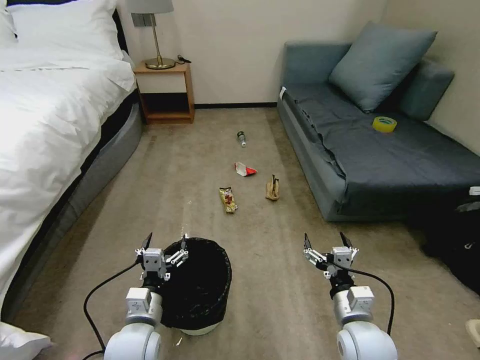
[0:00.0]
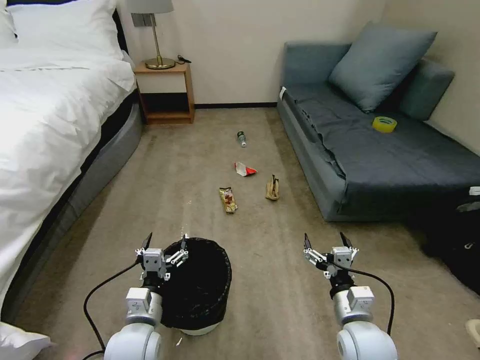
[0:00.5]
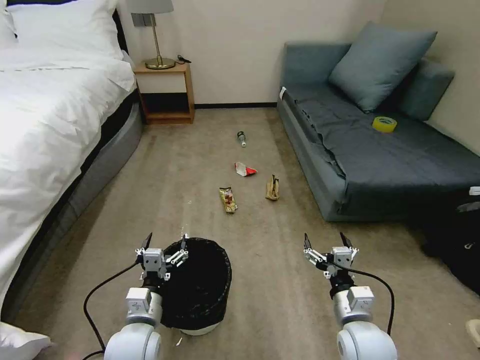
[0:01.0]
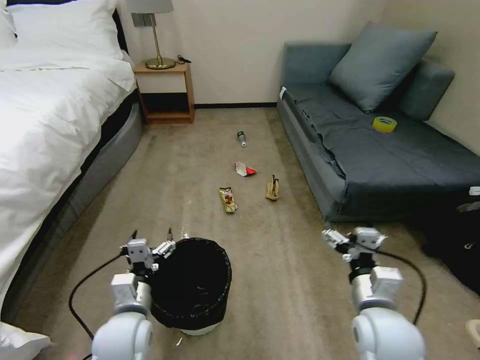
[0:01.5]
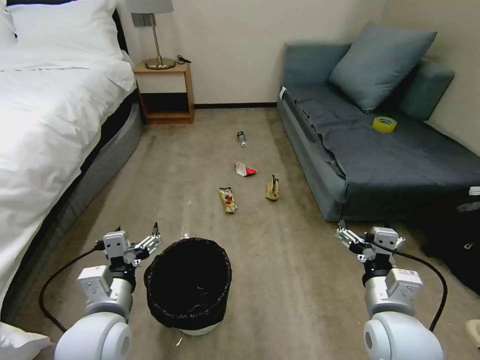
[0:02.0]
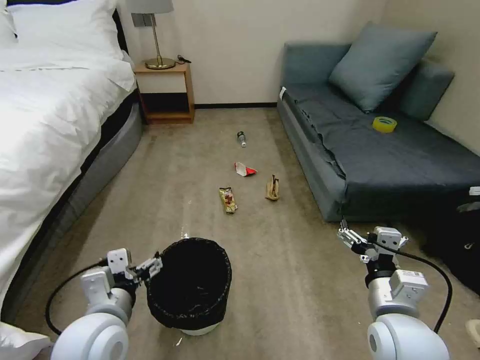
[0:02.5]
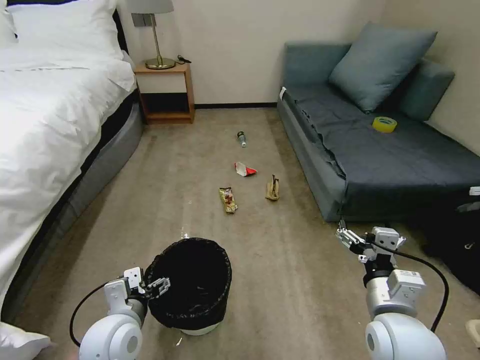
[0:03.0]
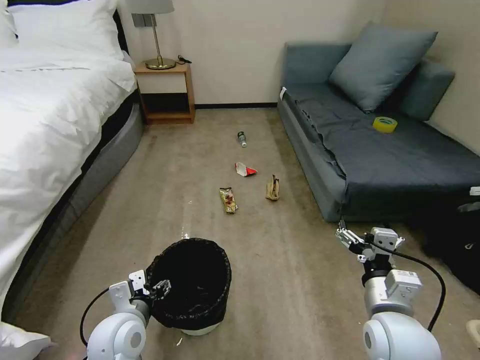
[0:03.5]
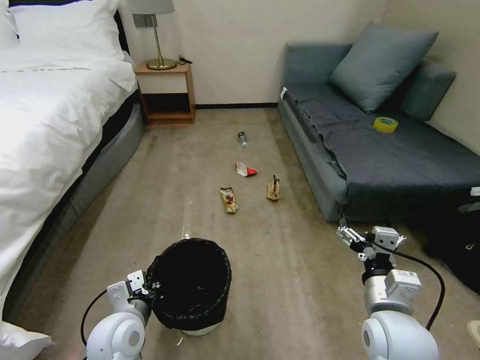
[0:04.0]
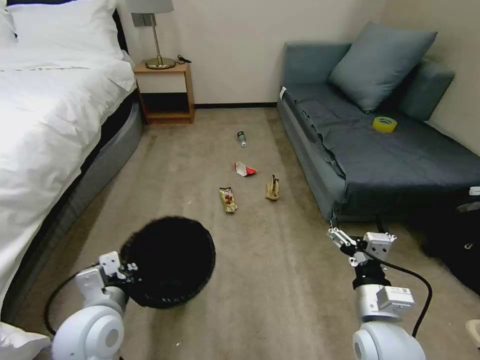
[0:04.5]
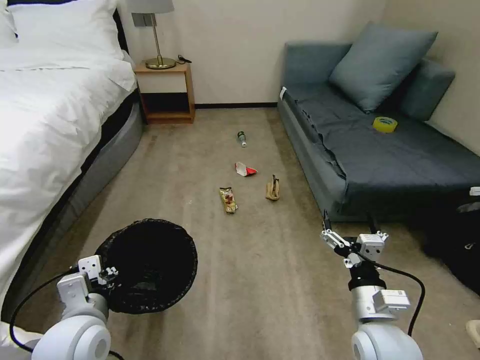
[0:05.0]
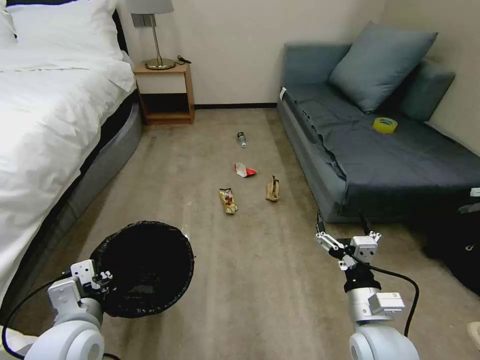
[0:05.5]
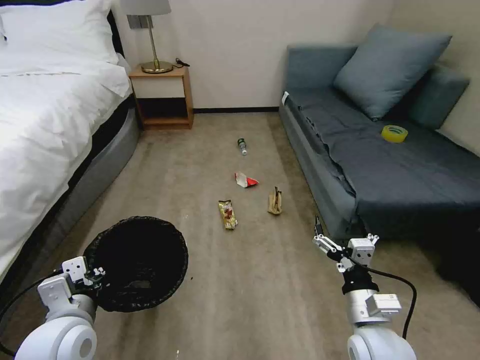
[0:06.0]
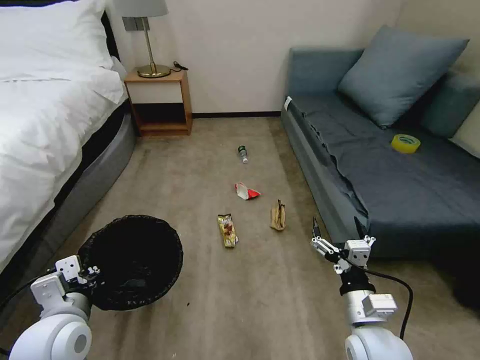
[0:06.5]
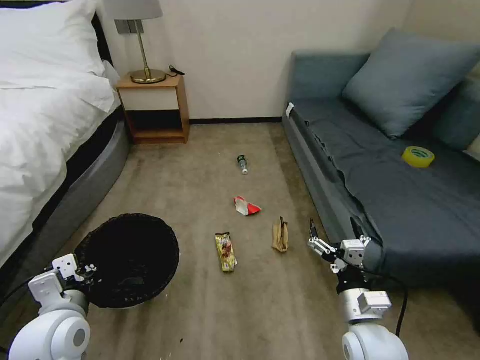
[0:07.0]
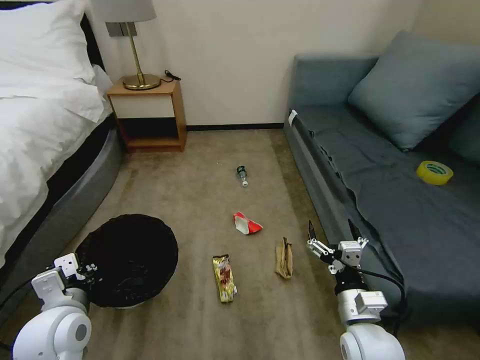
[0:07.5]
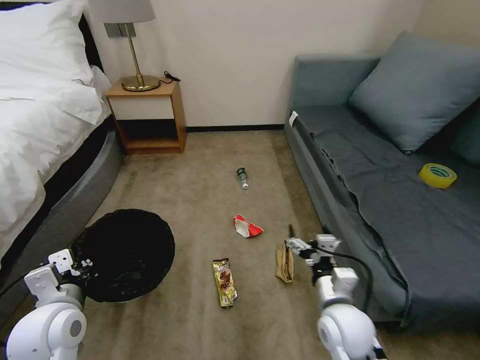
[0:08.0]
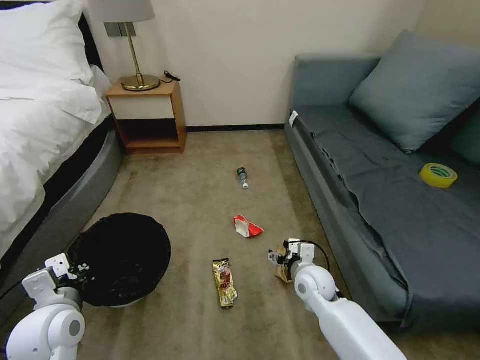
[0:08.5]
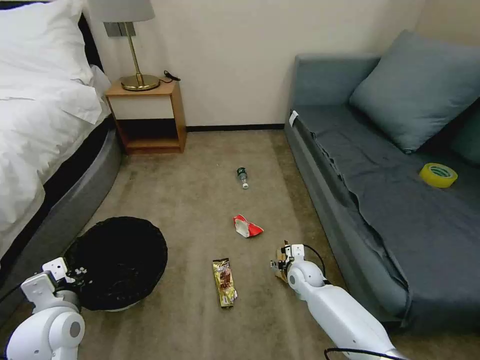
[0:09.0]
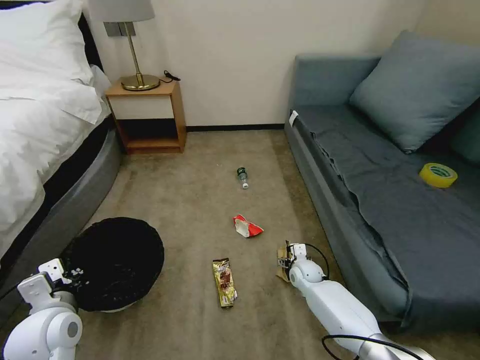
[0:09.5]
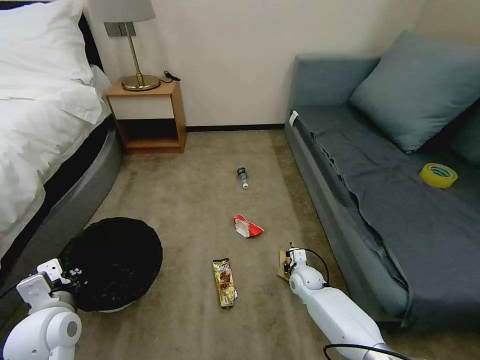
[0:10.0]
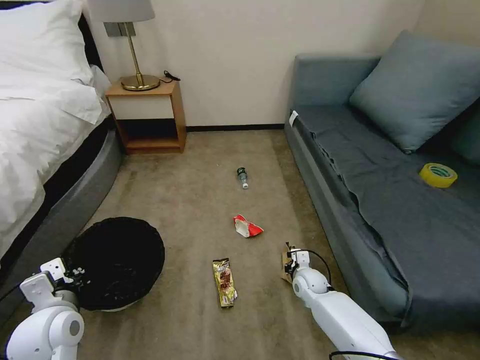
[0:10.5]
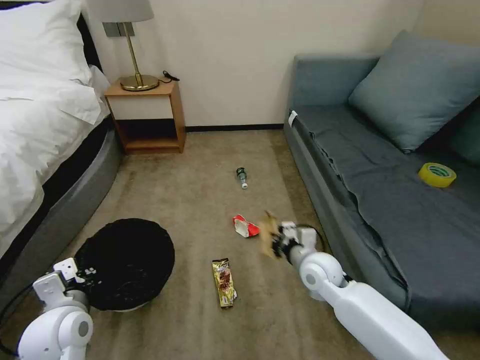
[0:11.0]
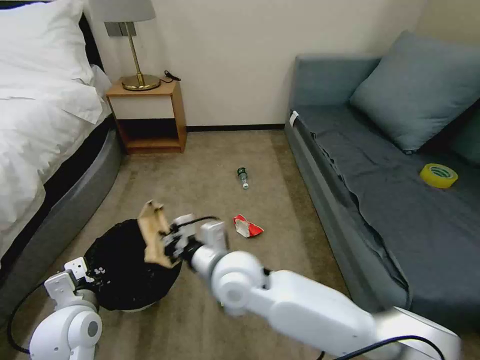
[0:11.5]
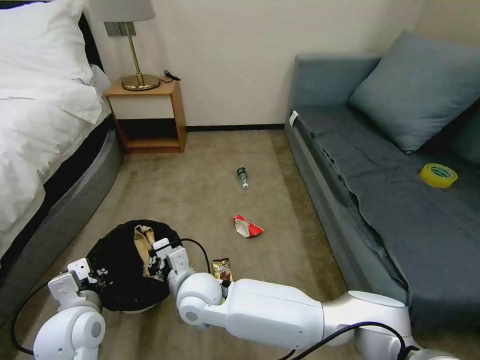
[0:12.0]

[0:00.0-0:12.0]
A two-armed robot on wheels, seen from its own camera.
Task of the whole recording: Pick up the trash bin, then pick up the garbage on the floor and place it into the trash bin.
0:02.0 to 0:04.0: The left gripper moves downward, about 5 cm, and closes its fingers.
0:04.0 to 0:06.0: The left gripper travels upward by some 10 cm.
0:06.0 to 0:08.0: The right gripper changes place by roughly 5 cm.
0:08.0 to 0:10.0: The right gripper shifts roughly 25 cm downward and forward, and closes.
0:10.0 to 0:12.0: The right gripper is displaced to the left and upward by about 35 cm, and closes up.

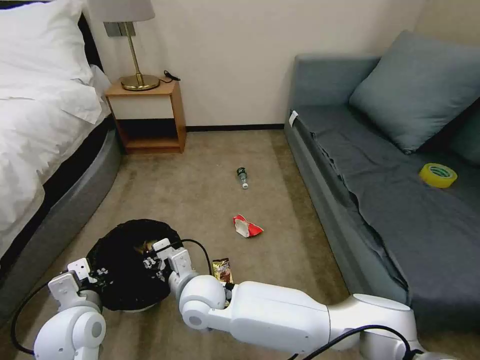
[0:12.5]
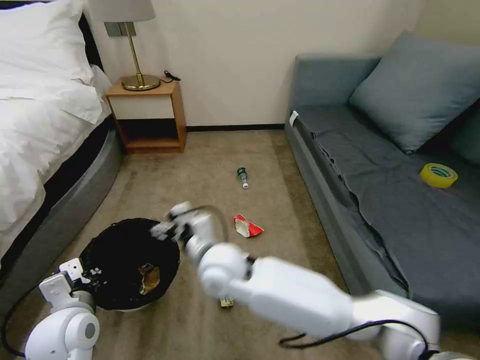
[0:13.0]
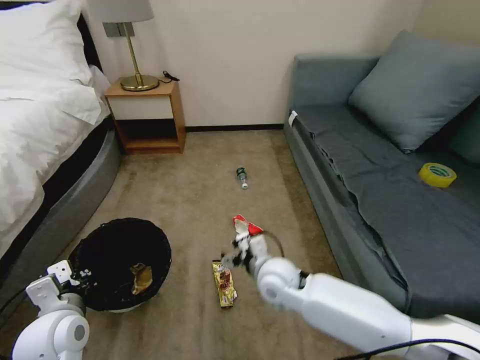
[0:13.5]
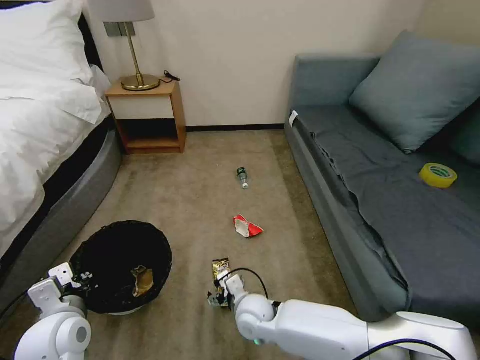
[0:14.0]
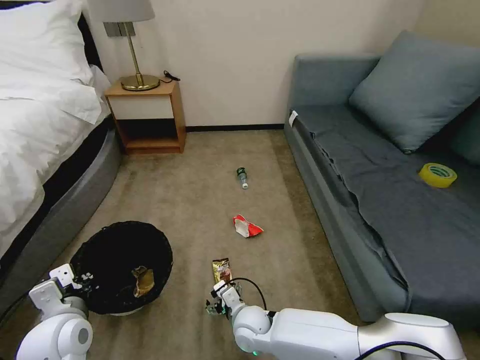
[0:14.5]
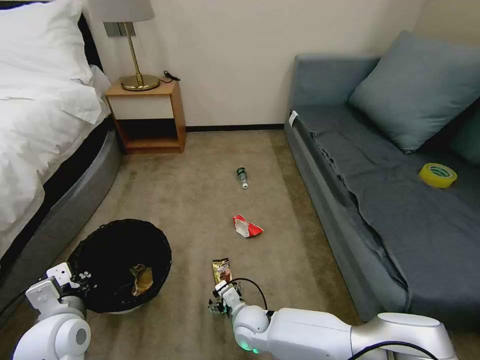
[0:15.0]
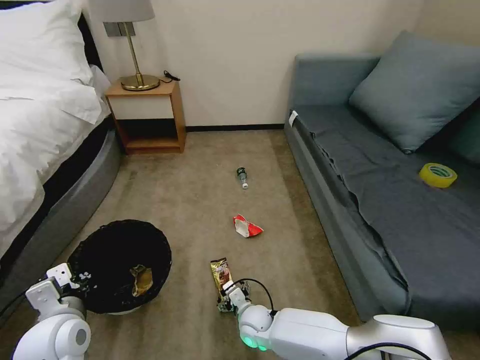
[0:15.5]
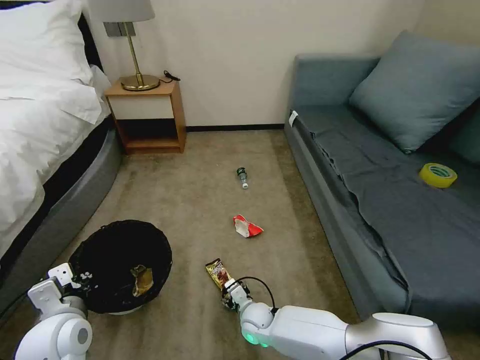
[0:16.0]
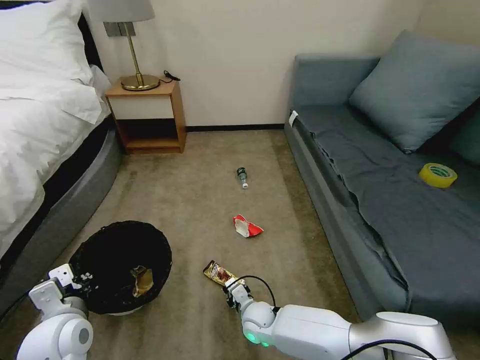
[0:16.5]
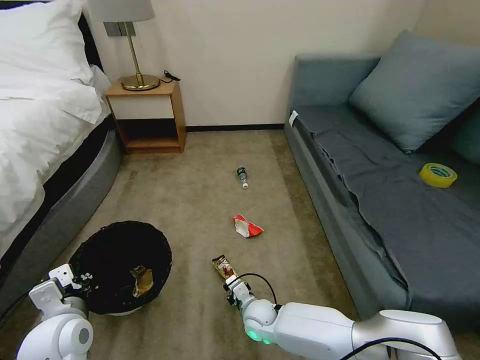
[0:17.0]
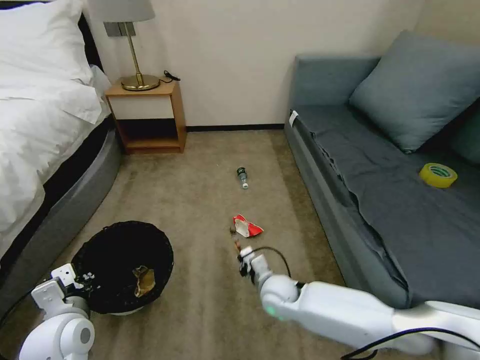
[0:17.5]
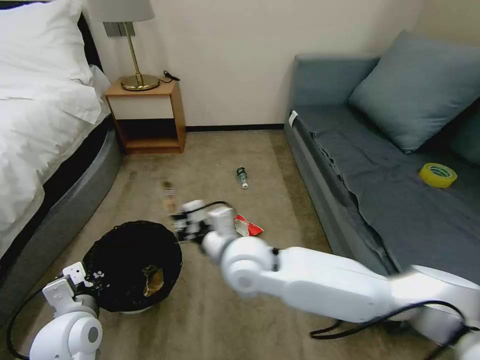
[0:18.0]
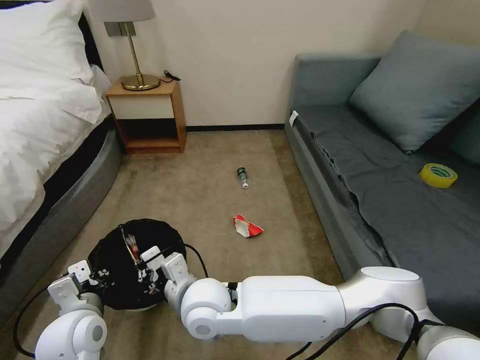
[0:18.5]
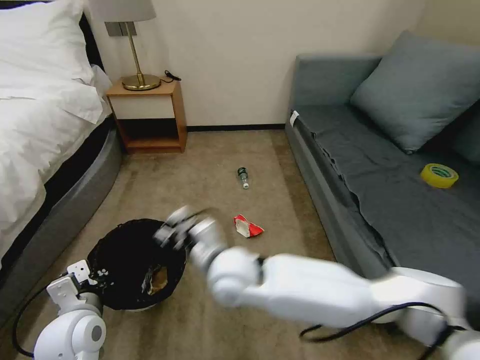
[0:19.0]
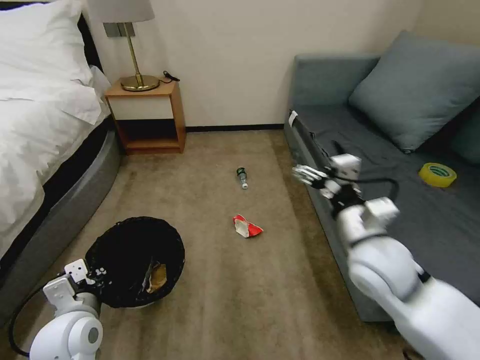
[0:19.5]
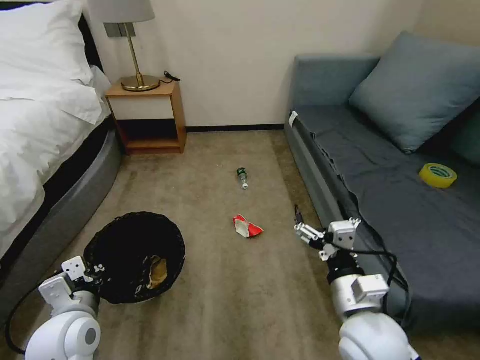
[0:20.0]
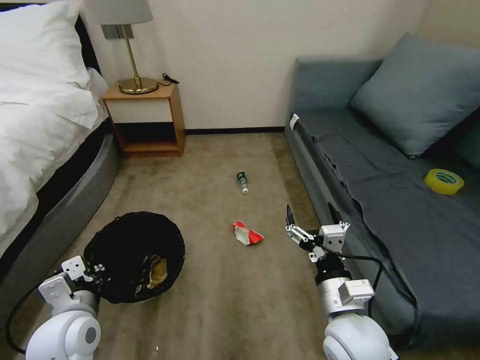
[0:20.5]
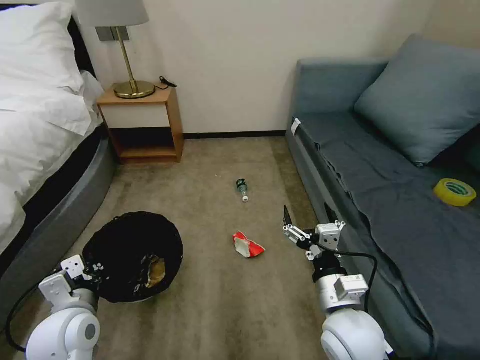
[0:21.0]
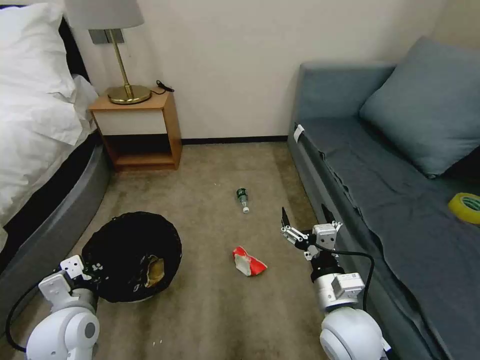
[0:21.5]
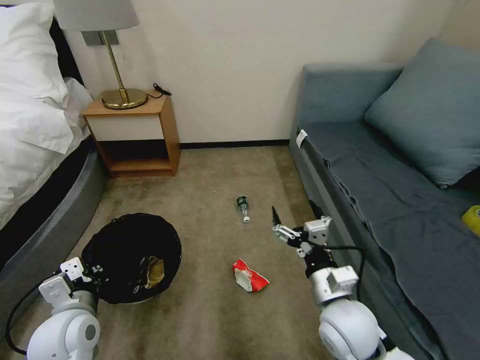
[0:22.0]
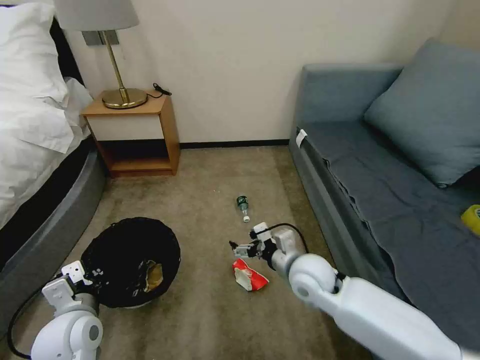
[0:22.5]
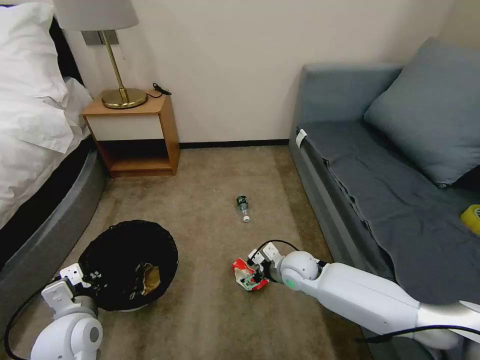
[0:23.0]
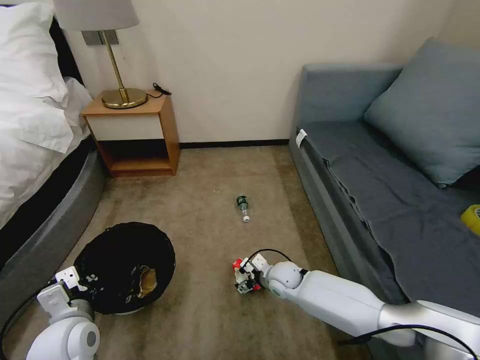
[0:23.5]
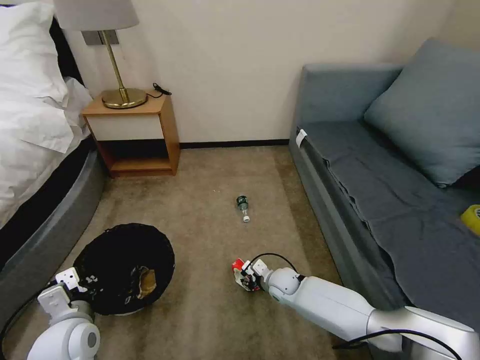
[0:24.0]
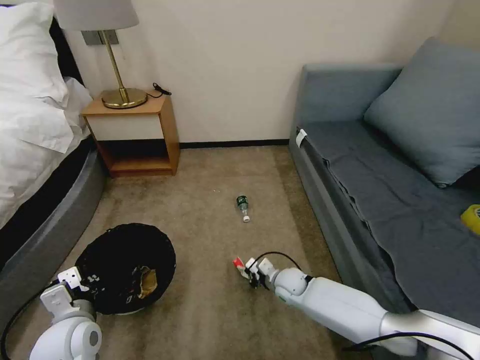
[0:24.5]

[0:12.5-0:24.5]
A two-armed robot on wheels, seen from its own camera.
Task of the whole recording: Pick up the trash bin, then pick up the garbage on the floor and place it into the trash bin.
0:12.5 to 0:14.5: The right gripper shifts roughly 20 cm downward and to the right, and opens.
0:14.5 to 0:16.5: The right gripper changes place by some 5 cm, and closes up.
0:16.5 to 0:18.5: The right gripper heads upward and to the left, covering some 30 cm.
0:18.5 to 0:20.5: The right gripper goes some 25 cm to the right, and opens its fingers.
0:20.5 to 0:22.5: The right gripper goes some 15 cm forward.
0:22.5 to 0:24.5: The right gripper moves downward, approximately 20 cm, and closes its fingers.

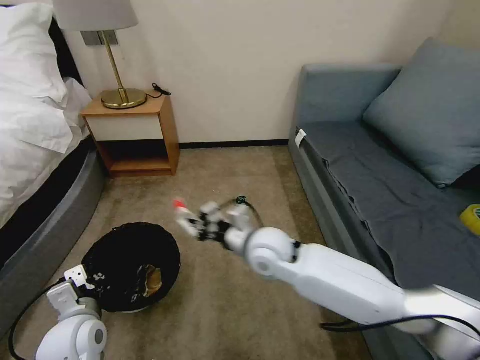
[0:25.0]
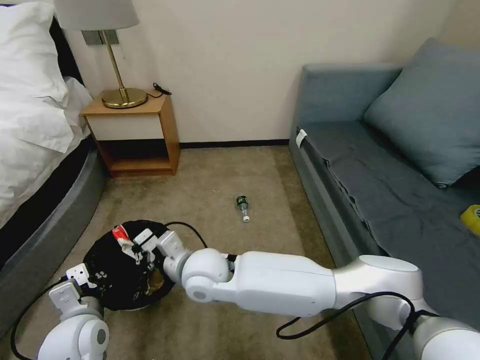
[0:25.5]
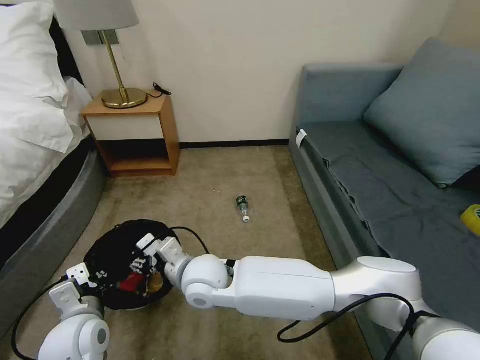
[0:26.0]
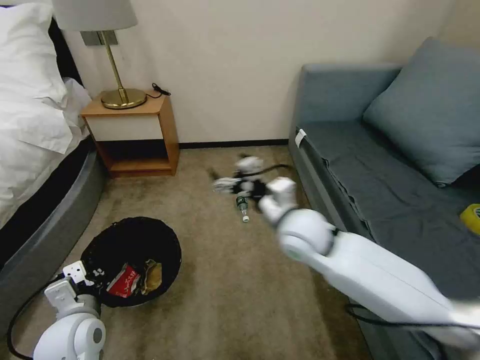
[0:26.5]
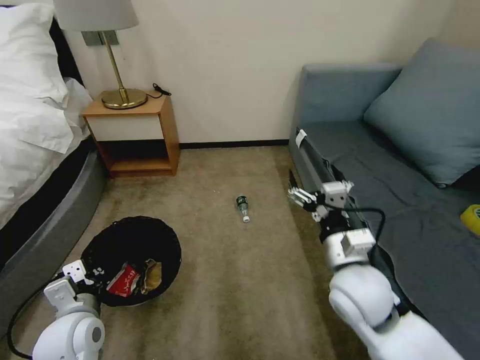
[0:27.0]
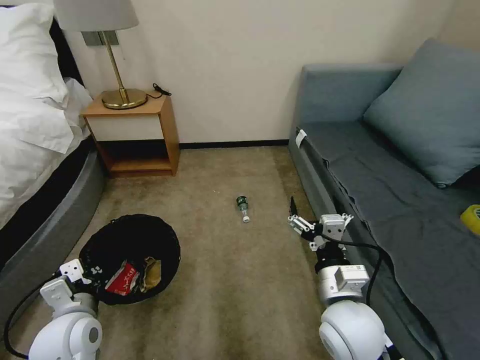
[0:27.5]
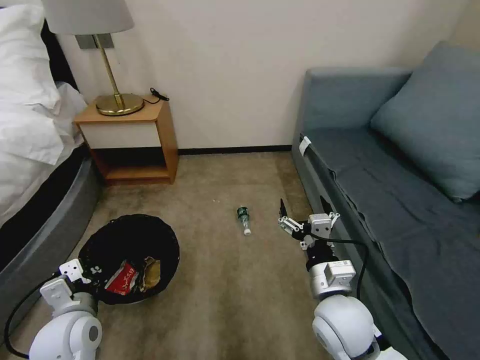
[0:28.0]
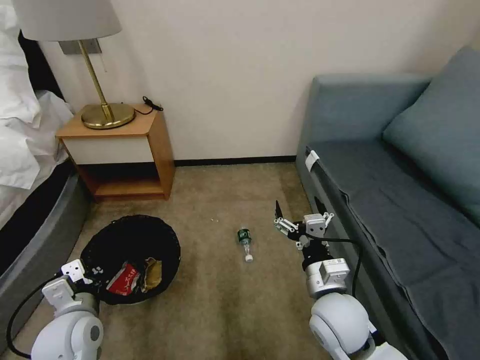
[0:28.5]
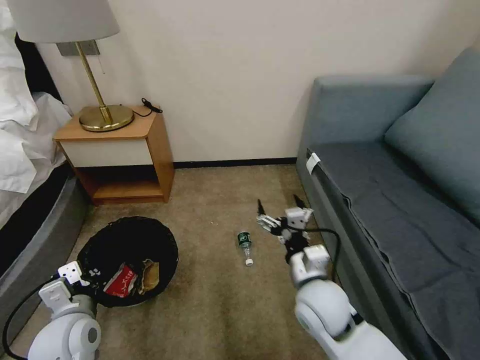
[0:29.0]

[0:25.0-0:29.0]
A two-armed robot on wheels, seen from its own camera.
Task of the whole recording: Pick up the trash bin, then pick up the garbage on the floor and place it into the trash bin.
0:25.0 to 0:27.0: The right gripper travels to the right and backward by approximately 20 cm, and opens.
0:27.0 to 0:29.0: The right gripper shifts roughly 5 cm downward.
